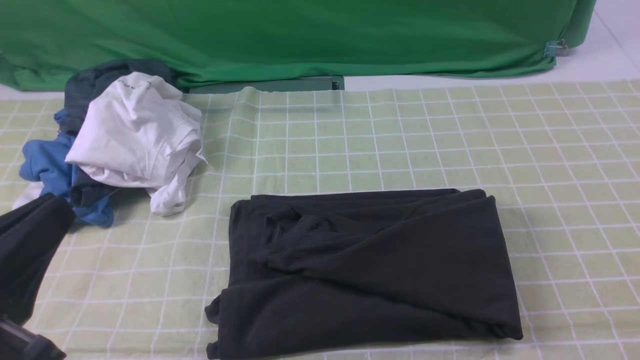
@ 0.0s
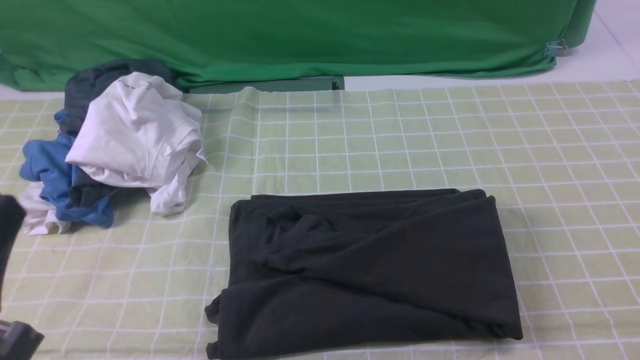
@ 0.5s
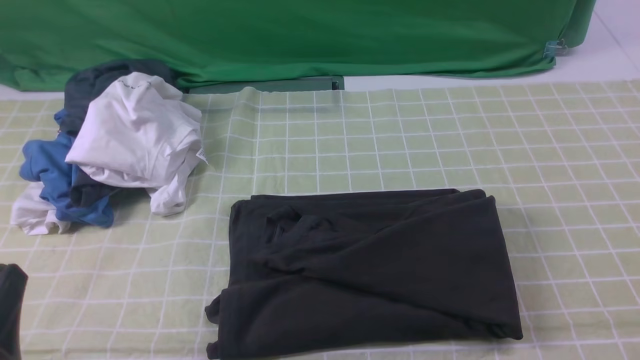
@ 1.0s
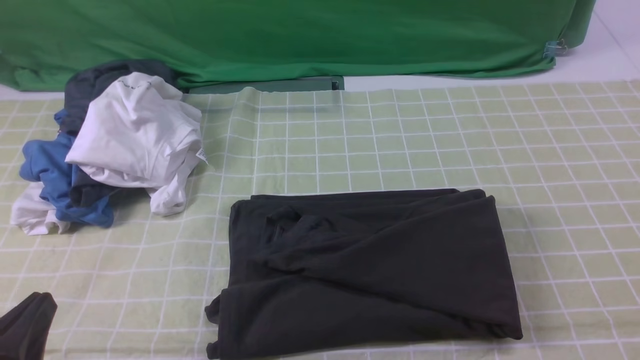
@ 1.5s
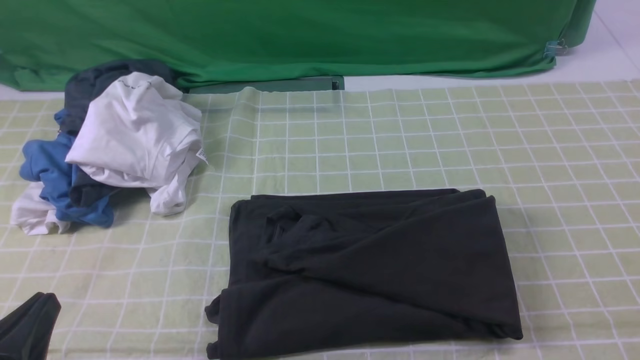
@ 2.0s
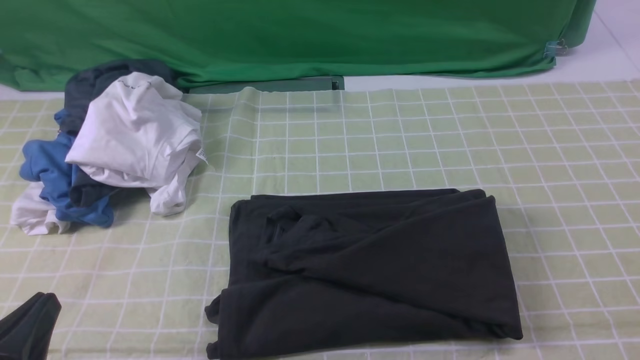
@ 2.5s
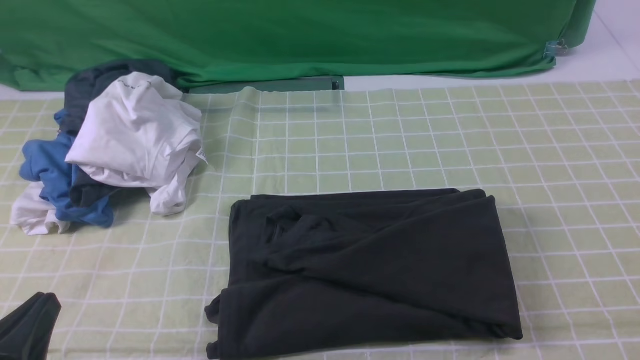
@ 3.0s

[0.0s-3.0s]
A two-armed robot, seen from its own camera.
0.0s to 1.5s: The left gripper moves downward, roughly 10 cm.
1.5s to 3.0s: Both grippers stay about where they are.
